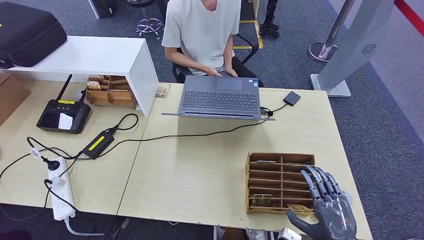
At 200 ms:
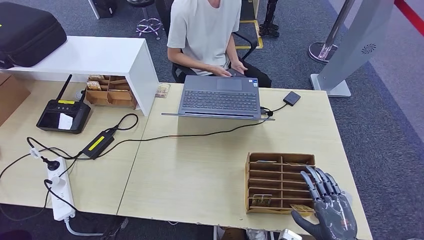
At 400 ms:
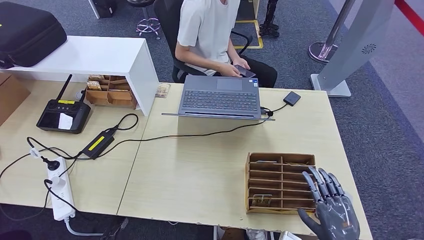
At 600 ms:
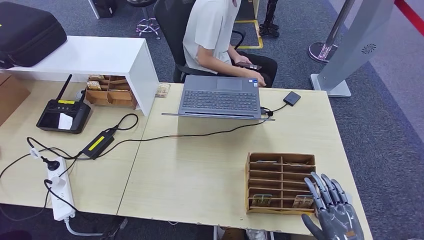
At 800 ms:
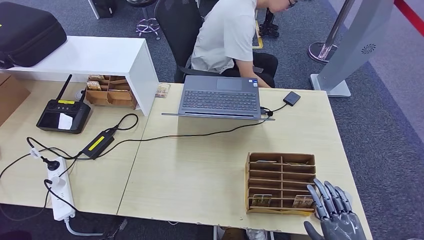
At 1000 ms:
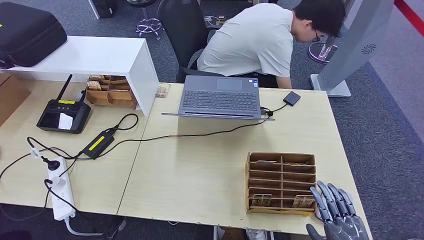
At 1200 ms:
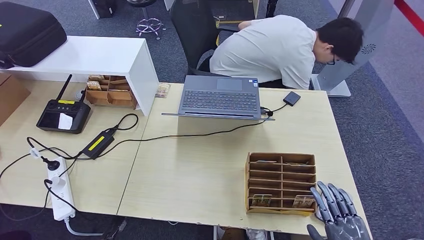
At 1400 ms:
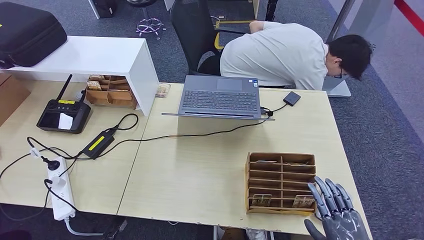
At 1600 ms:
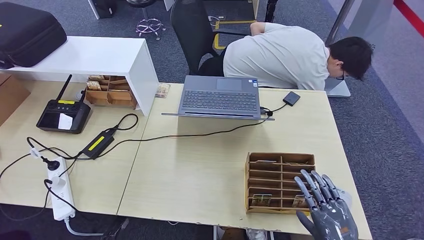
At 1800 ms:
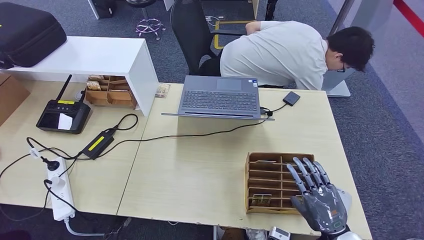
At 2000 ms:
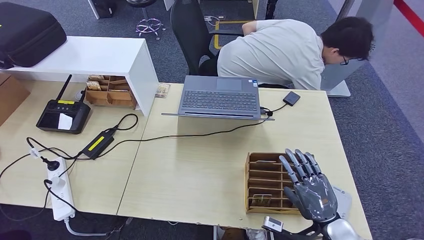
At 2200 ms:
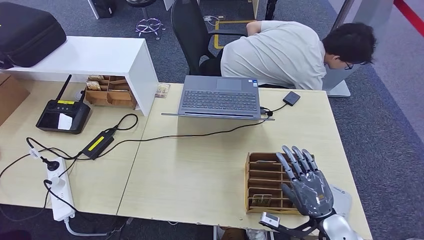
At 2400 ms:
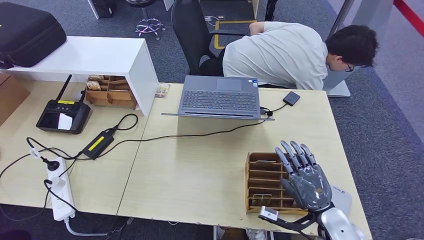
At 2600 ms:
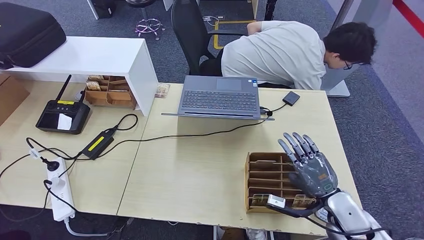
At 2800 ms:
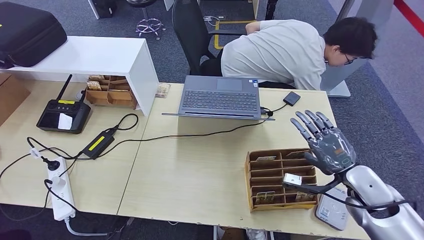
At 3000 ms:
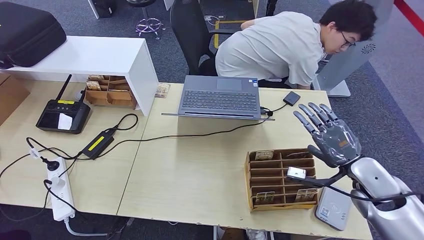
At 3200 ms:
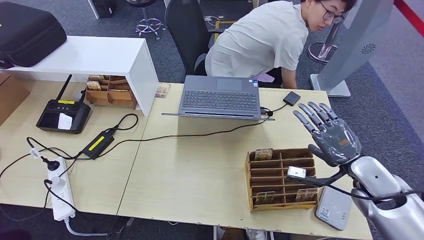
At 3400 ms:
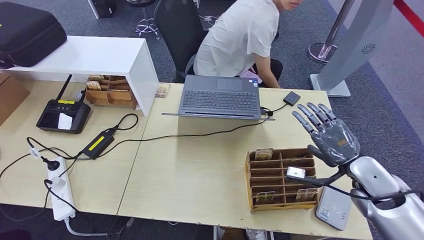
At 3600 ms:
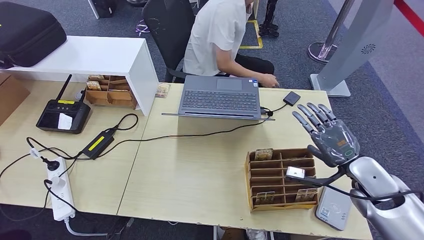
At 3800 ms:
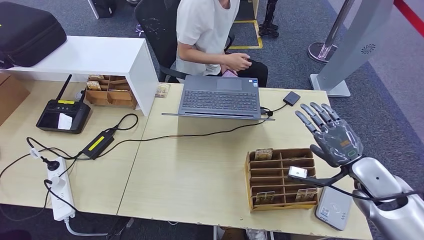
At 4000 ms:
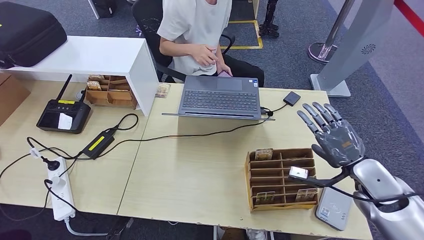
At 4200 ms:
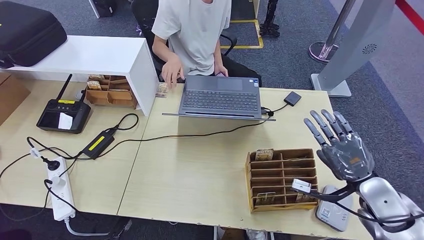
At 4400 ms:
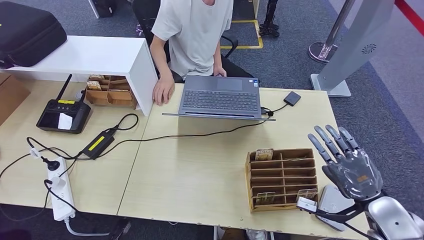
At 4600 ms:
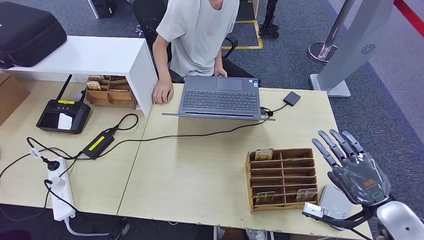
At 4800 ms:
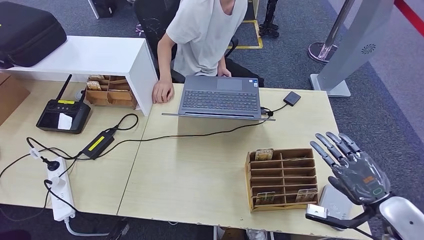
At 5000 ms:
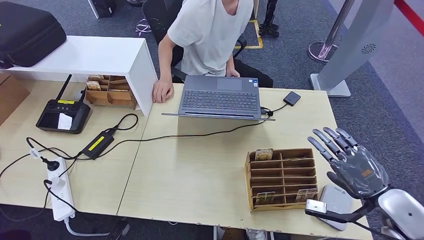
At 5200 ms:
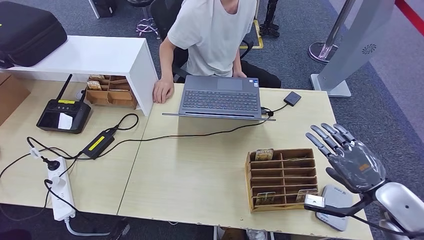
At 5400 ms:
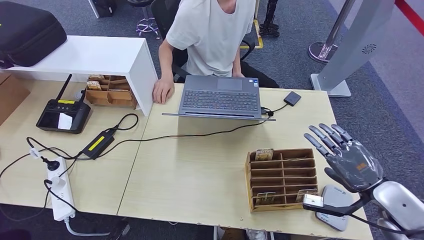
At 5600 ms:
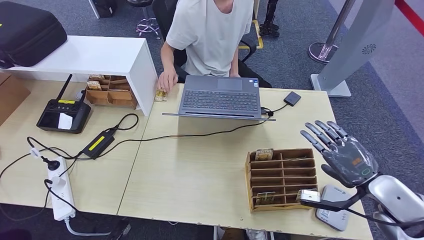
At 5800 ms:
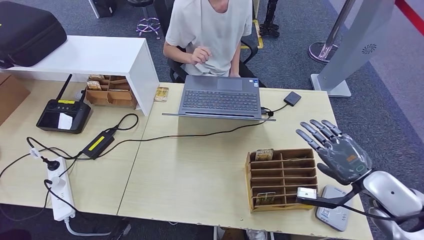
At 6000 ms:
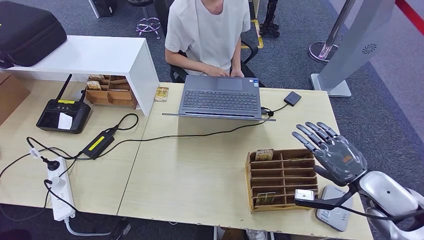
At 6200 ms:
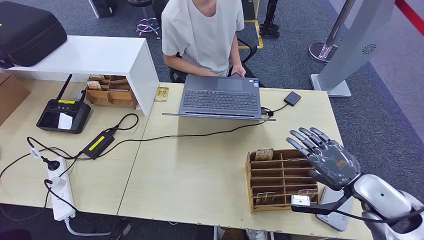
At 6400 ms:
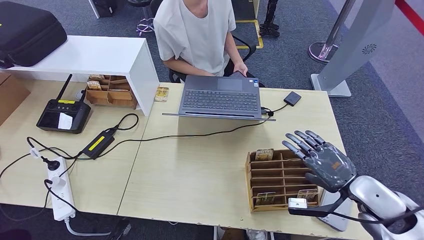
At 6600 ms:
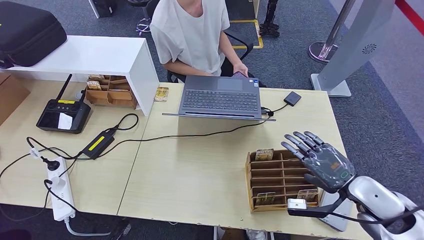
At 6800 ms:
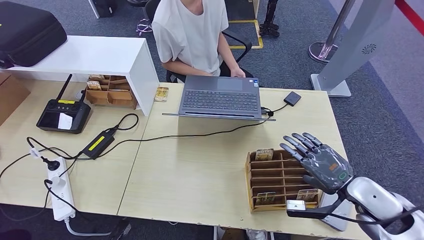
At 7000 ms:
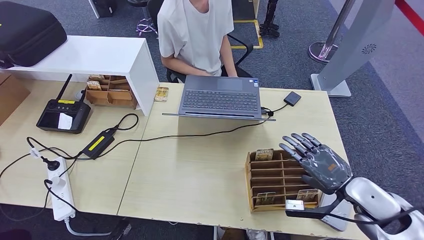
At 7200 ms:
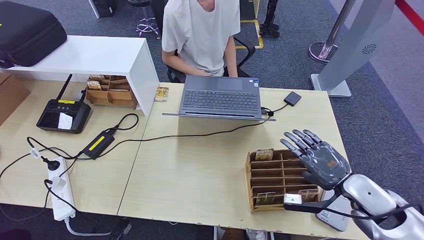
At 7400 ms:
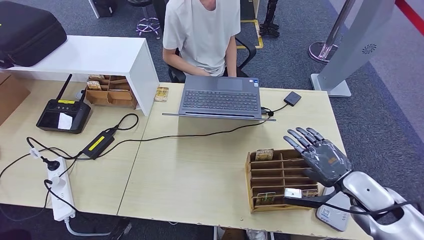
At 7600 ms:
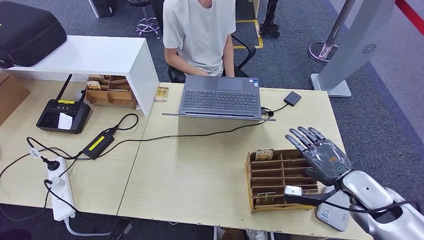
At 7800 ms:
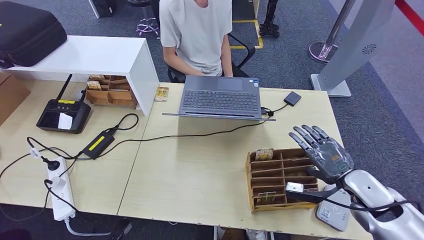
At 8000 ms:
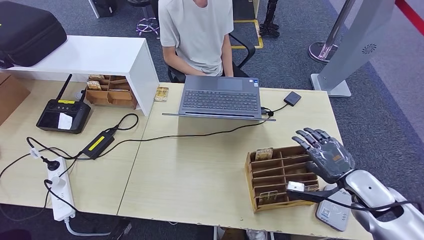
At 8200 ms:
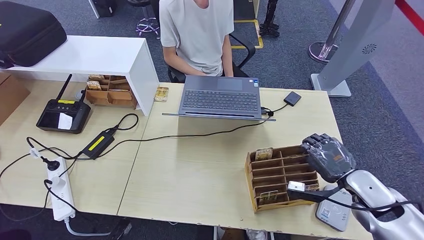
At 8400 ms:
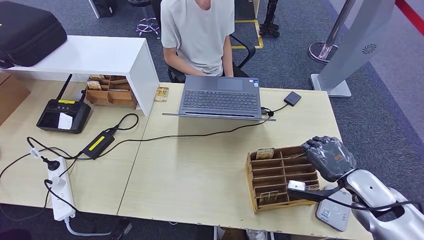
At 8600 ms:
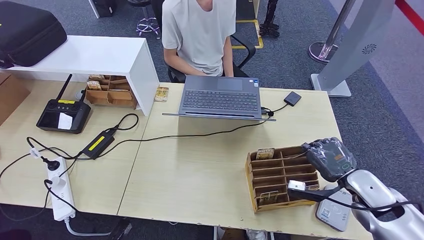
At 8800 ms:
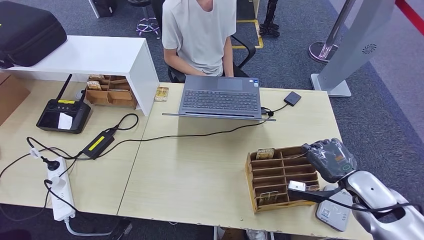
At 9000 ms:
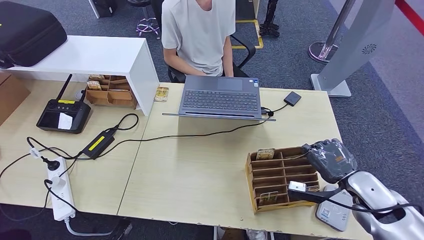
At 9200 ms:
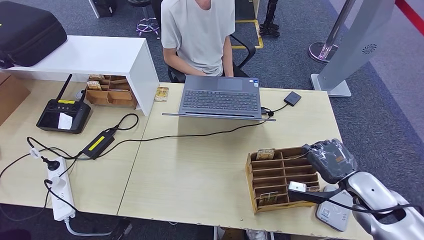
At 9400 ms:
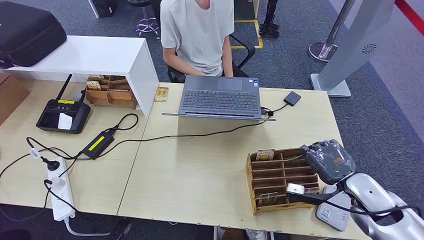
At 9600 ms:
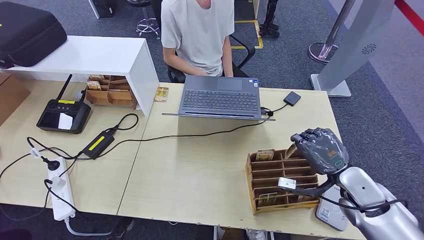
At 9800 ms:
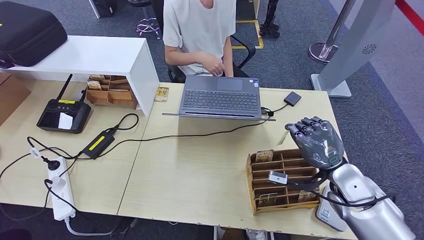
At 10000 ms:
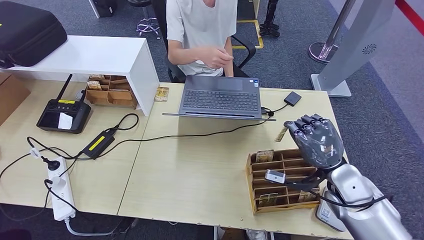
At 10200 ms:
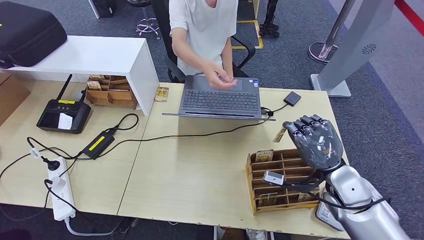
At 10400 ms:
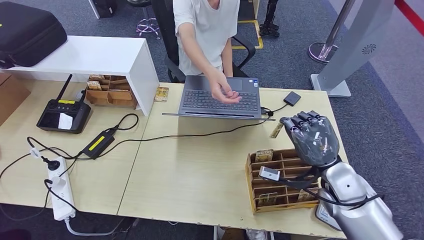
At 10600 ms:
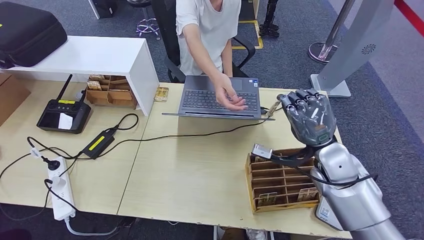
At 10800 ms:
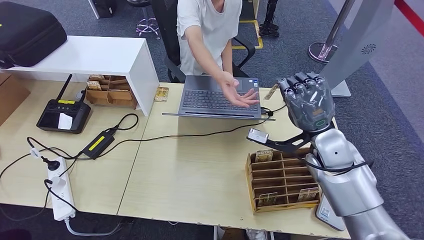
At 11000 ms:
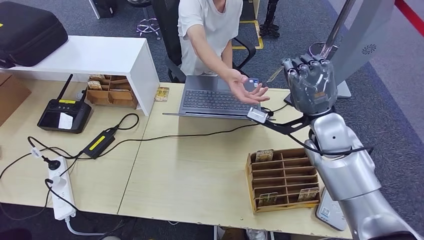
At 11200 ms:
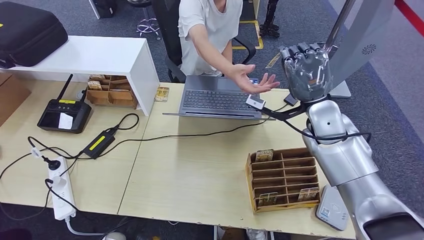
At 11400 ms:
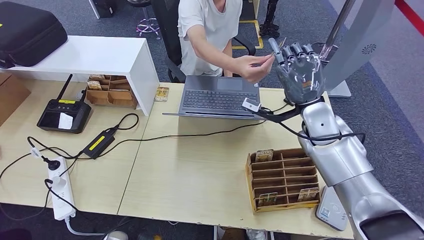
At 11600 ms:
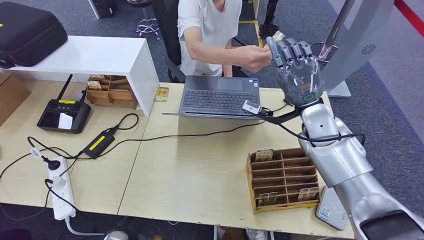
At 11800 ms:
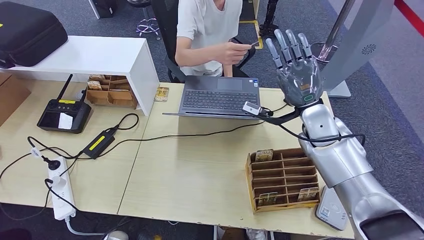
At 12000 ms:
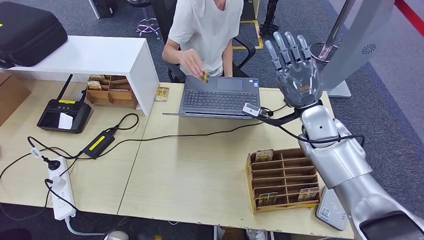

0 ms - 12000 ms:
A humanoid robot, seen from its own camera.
Step, 0 ms - 10600 ms: Pick up the room key from the key card box.
0 ms - 1600 ms: The hands make only small movements.
1600 ms - 3000 ms: The right hand goes approximately 20 cm forward and upward.
4400 ms - 6000 ms: The hands move only a little.
6000 ms - 7600 ms: The hands make only small movements.
7600 ms - 9000 ms: Both hands stay about where they are.
9000 ms - 10400 ms: The right hand travels to the left by approximately 10 cm.
10400 ms - 12000 ms: The right hand shifts some 15 cm forward, upward and to the left, while the left hand moves forward, some 5 cm.

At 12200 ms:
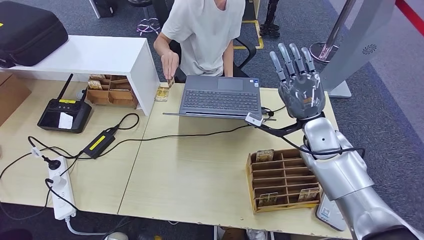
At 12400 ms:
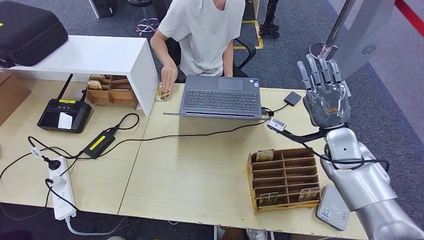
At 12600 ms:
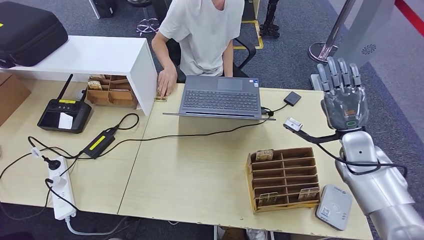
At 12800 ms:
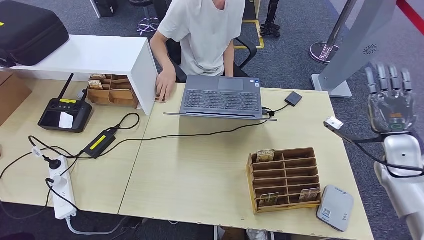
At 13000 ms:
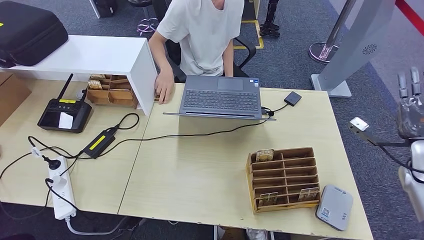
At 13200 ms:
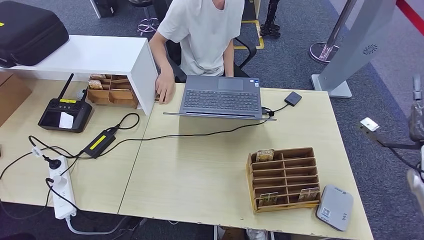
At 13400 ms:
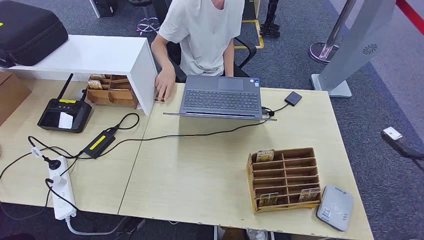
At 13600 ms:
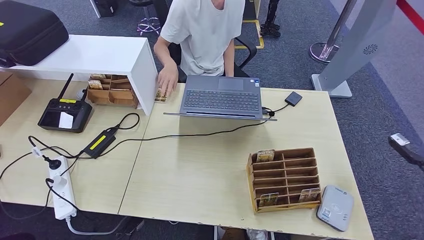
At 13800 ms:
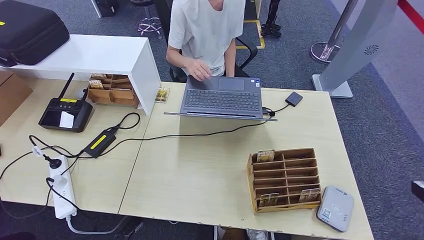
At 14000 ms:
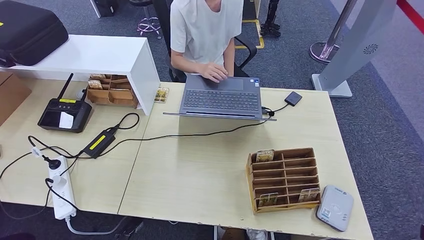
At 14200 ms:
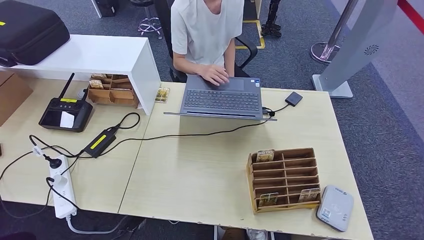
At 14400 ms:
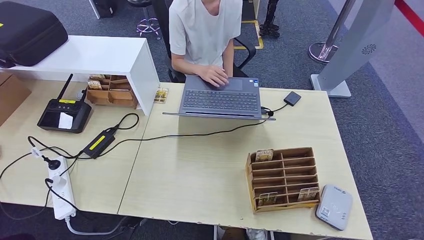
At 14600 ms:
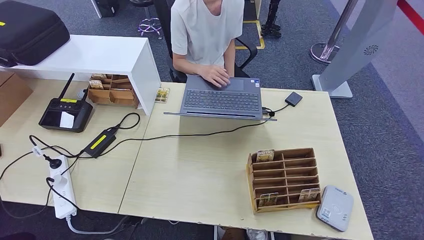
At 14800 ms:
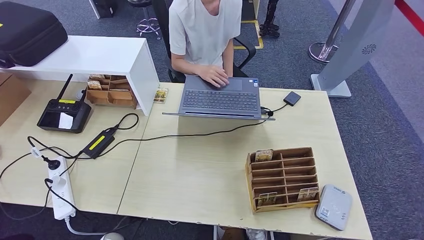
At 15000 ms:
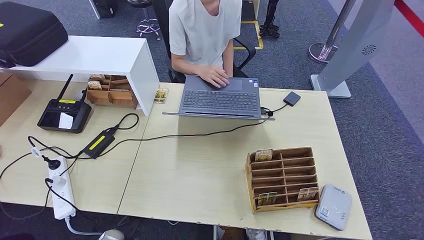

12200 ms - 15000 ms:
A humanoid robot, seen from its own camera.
Step, 12200 ms - 15000 ms: Hand the room key to the person.
12200 ms - 13600 ms: The left hand travels backward by roughly 5 cm, while the right hand is displaced to the right by approximately 35 cm.
13600 ms - 15000 ms: The left hand heads forward, covering about 5 cm. The right hand shifts some 40 cm backward, downward and to the left.
